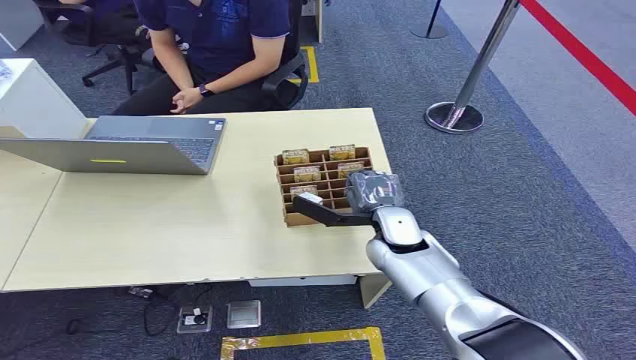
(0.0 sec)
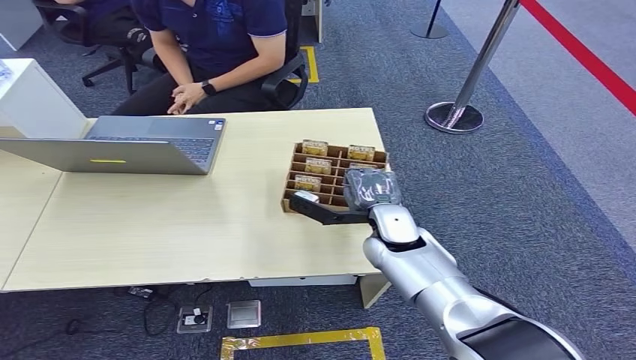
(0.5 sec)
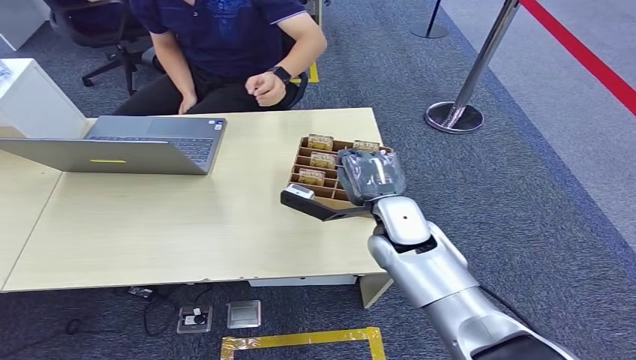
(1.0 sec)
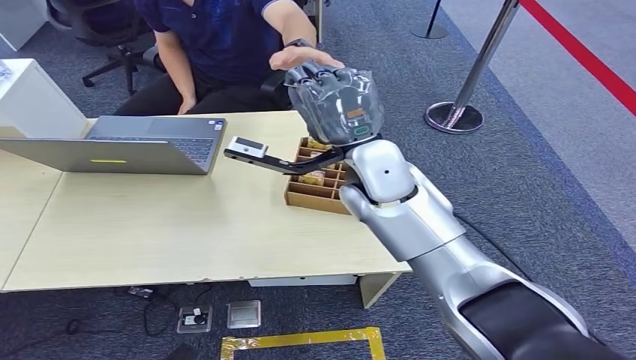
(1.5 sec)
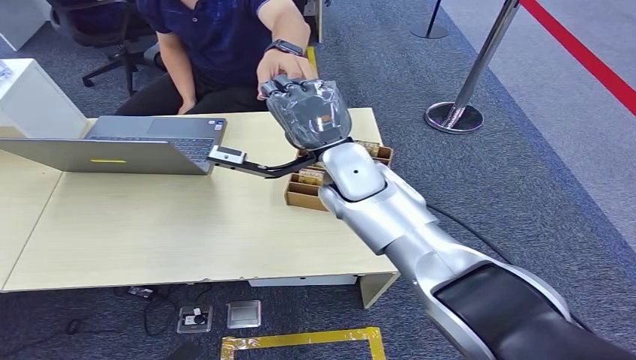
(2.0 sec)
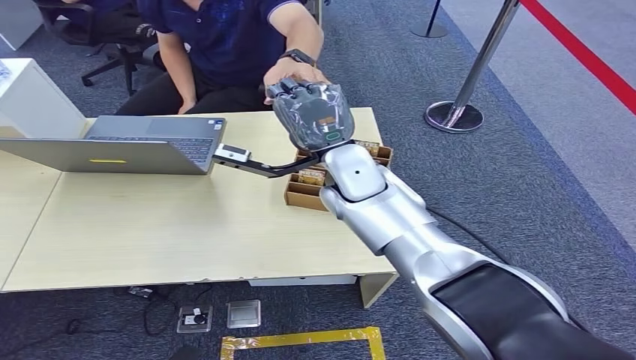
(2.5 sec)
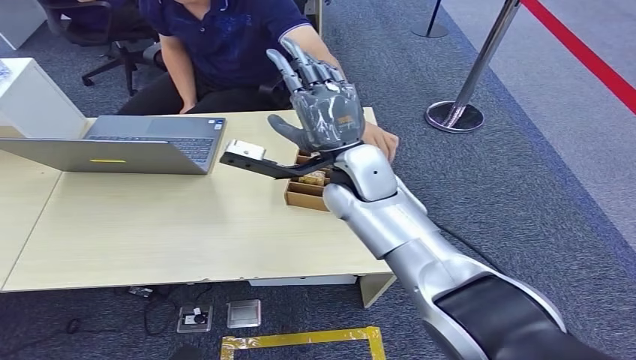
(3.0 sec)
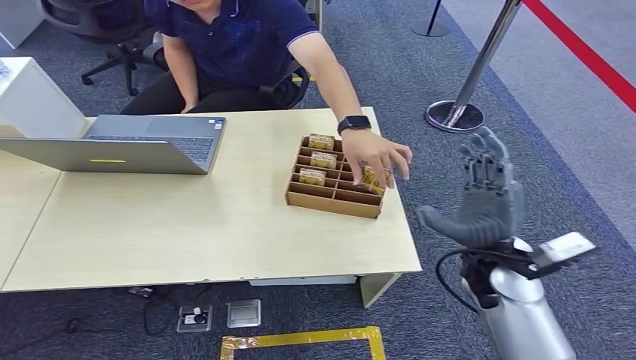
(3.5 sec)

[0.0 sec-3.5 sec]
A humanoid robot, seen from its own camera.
Step, 0.0 sec to 1.0 sec: Pick up the key card from the card box.
Step, 1.5 sec to 3.5 sec: Hand the key card to the target.

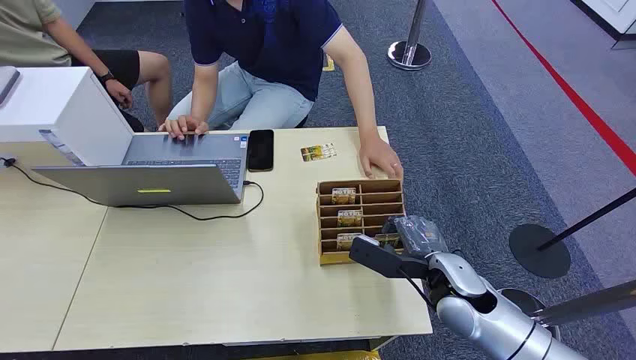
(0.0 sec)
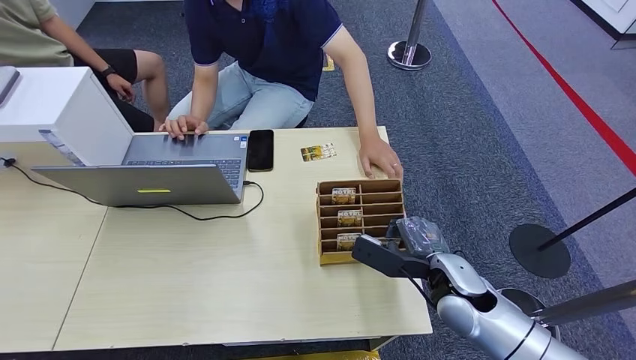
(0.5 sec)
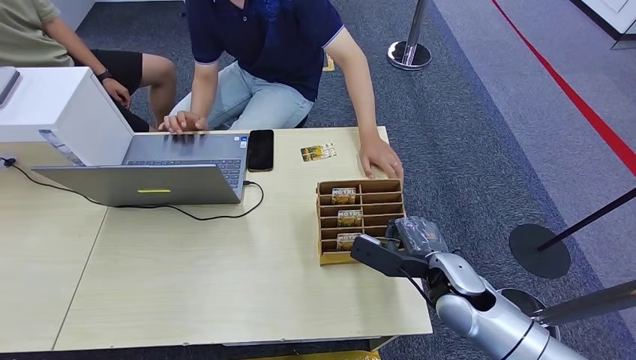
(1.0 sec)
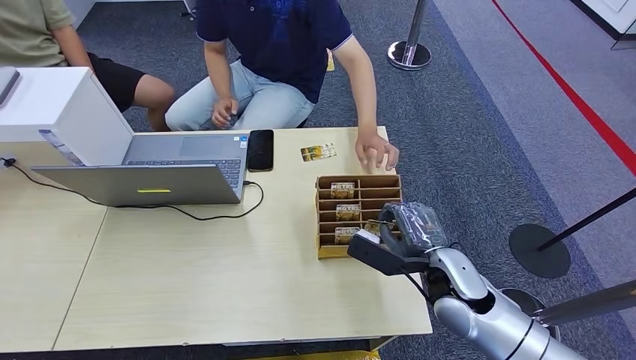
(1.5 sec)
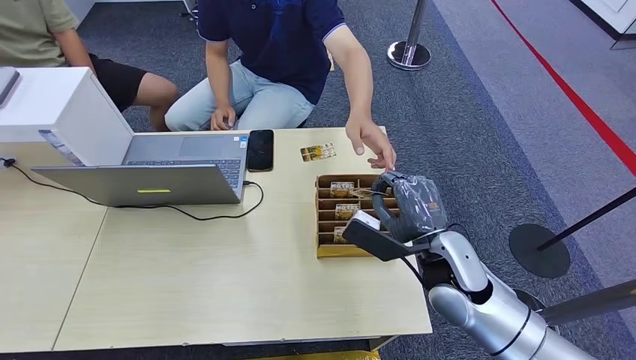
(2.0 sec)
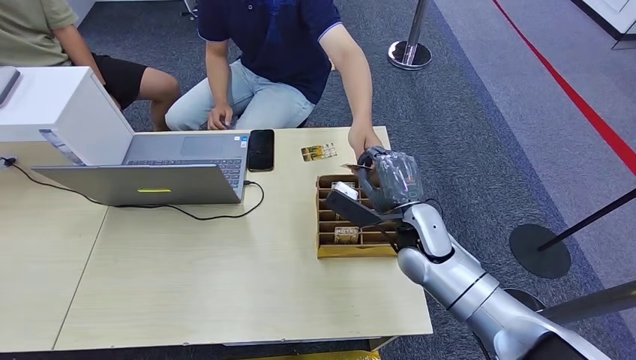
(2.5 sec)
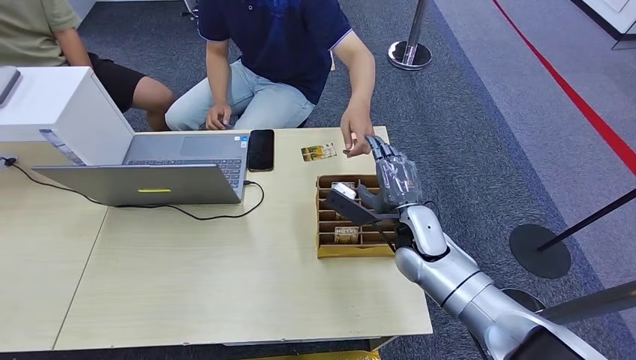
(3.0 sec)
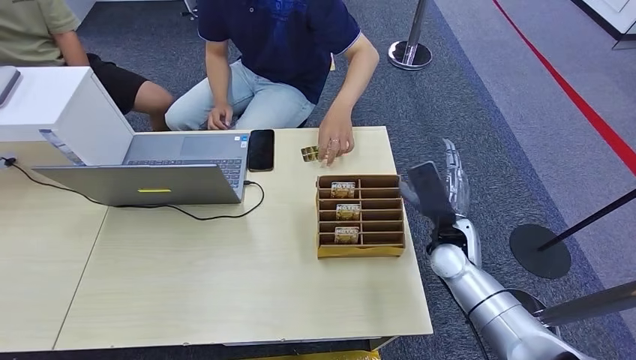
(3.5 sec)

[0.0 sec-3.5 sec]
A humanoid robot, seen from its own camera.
Step, 0.0 sec to 2.0 sec: Pick up the key card from the card box.
Step, 2.5 sec to 3.0 sec: Hand the key card to the target.
2.0 sec to 3.5 sec: The right hand is displaced forward and downward by approximately 10 cm.
